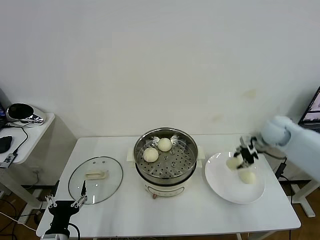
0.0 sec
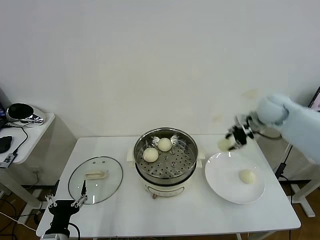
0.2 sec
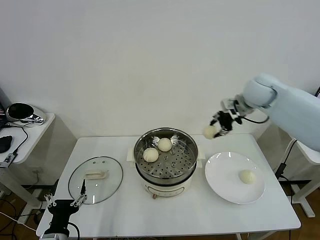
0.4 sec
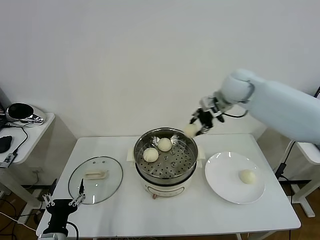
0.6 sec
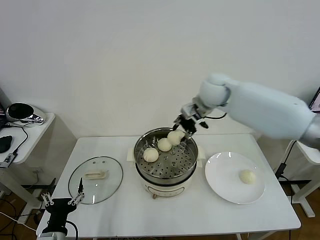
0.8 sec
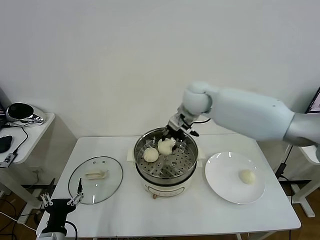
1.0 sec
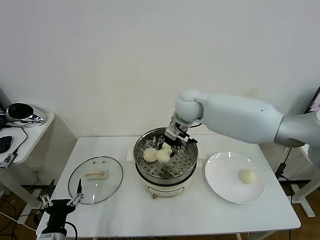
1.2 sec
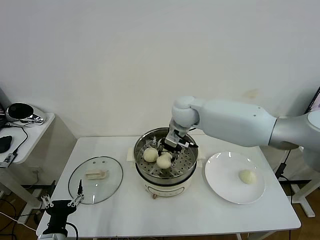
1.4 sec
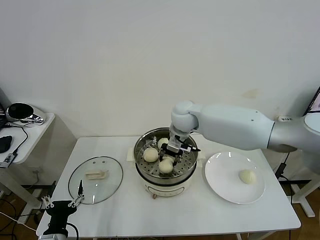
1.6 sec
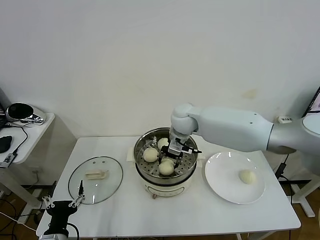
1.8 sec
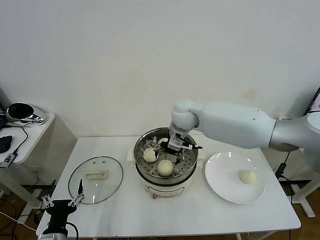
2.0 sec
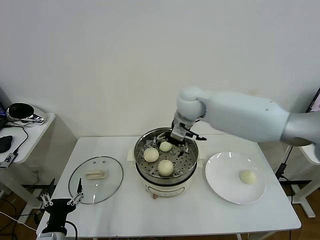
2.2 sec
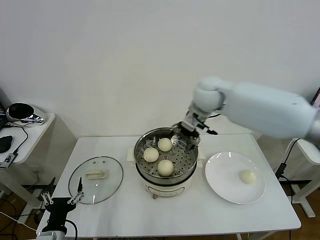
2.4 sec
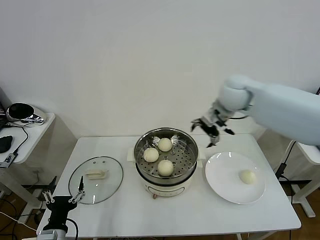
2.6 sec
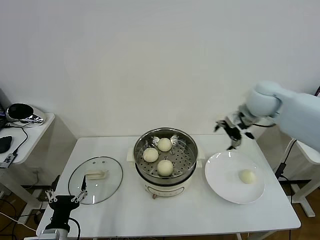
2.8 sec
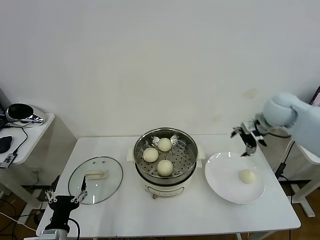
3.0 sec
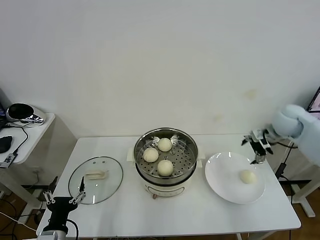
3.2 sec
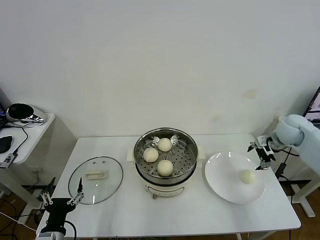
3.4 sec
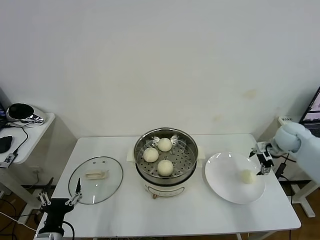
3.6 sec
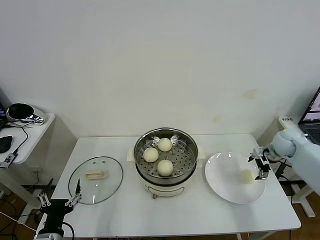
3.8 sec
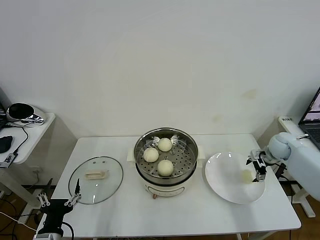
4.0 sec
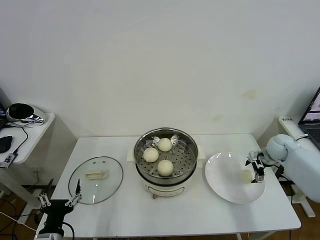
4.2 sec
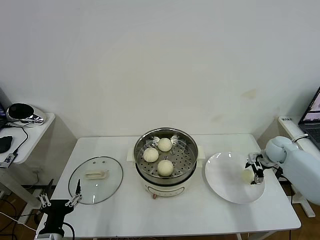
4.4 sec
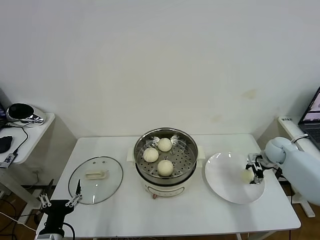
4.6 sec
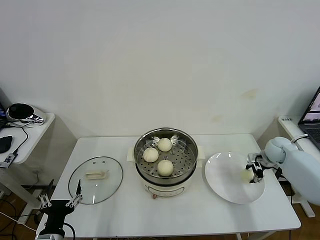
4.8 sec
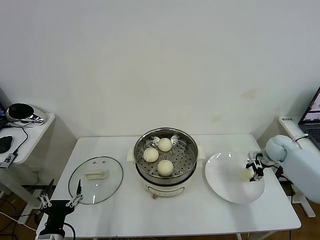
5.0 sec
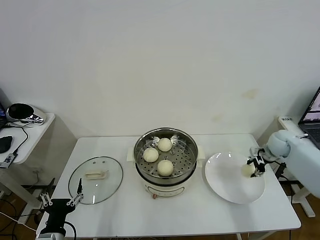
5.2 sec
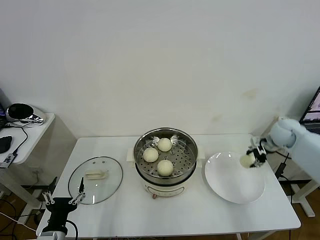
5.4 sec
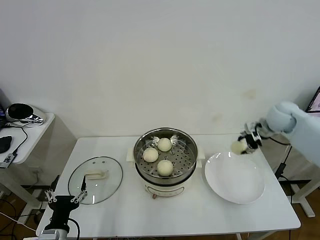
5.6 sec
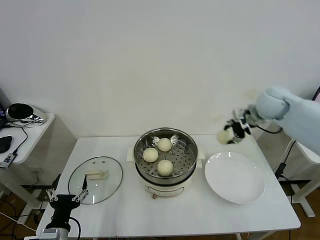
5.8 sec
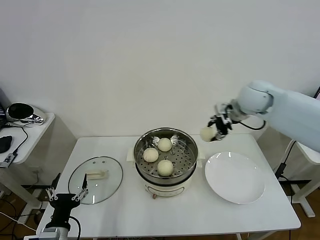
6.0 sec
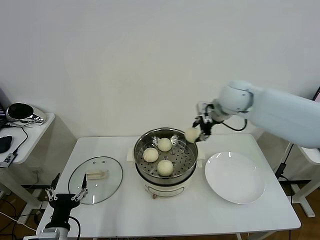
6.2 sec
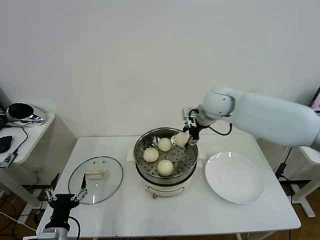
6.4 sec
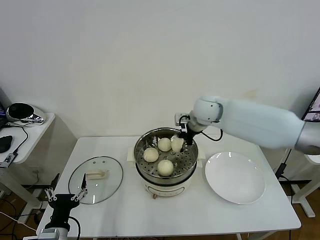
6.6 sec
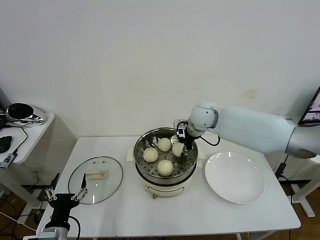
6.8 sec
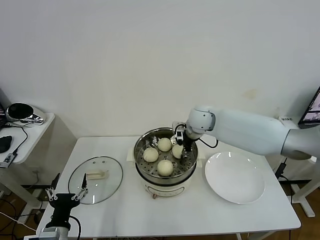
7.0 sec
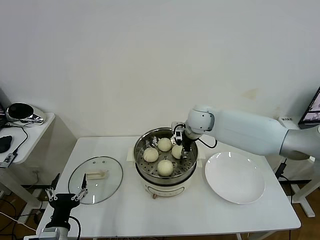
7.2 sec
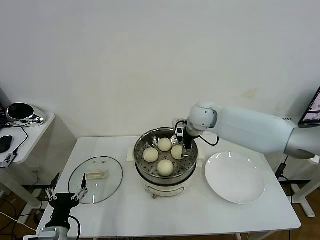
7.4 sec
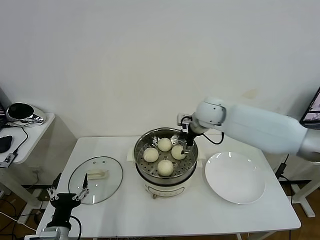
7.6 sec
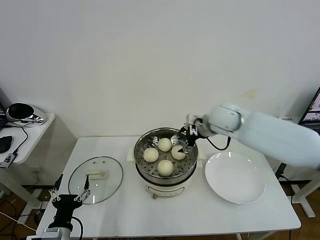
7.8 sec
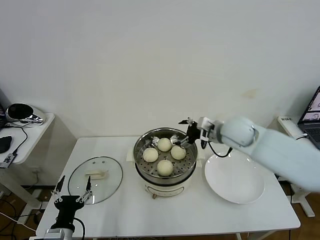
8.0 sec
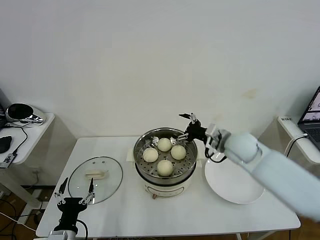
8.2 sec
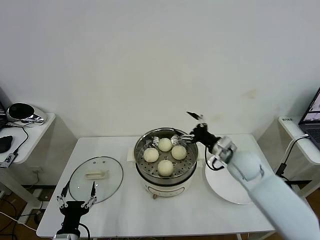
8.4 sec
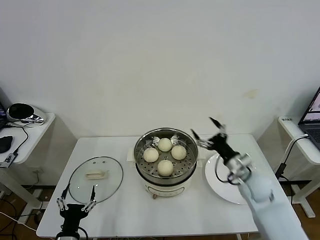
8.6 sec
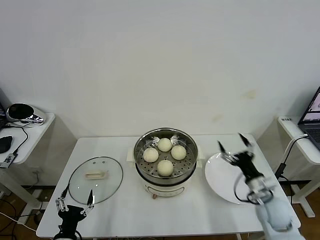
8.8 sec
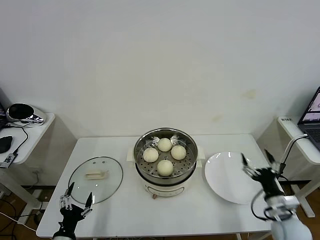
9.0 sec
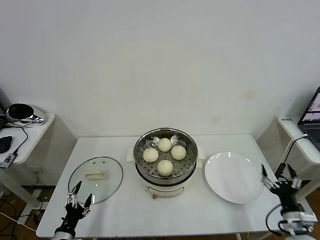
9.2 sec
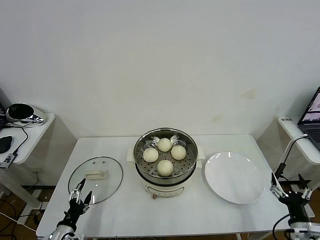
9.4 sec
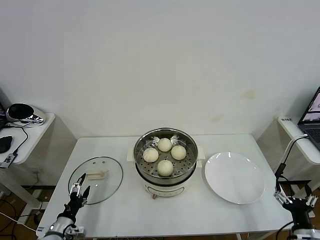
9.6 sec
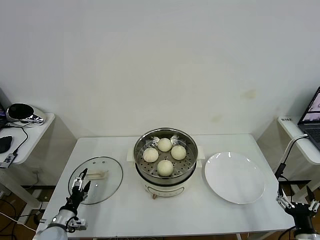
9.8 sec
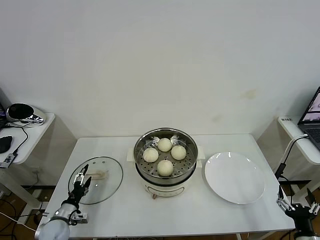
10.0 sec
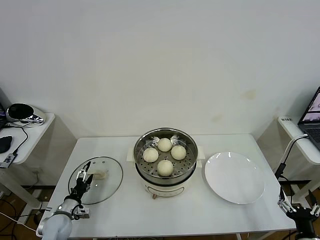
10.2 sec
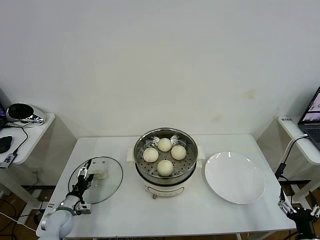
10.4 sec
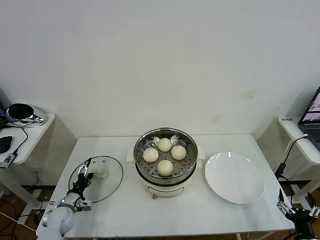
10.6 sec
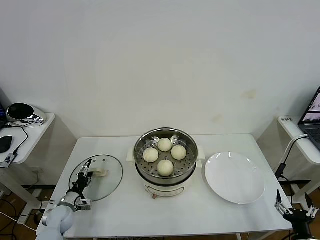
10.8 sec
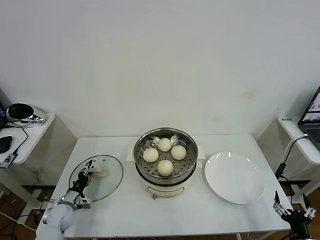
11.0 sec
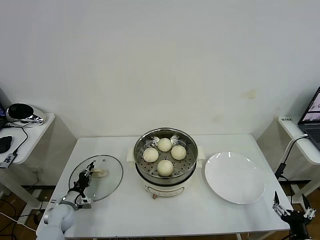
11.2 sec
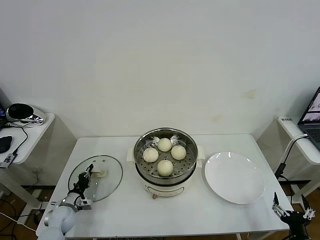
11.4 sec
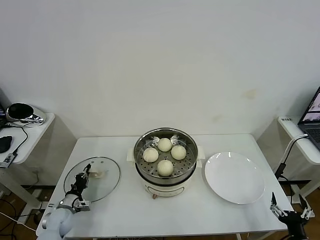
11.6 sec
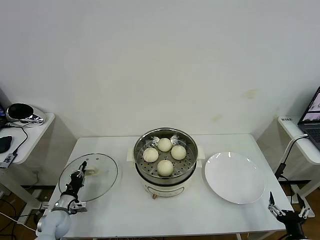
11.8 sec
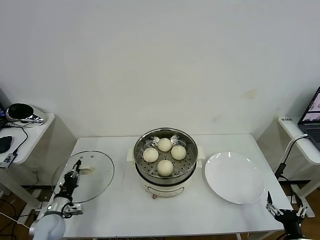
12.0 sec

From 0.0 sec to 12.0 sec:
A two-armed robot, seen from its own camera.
Task of the whole recording: take steamed baozi put them in steamer then cover it.
Step, from 0.0 sec to 2.0 sec: Place the baozi on the steamer with right gripper.
Step, from 2.2 sec to 5.0 sec: Grasp the baozi in the plate with right gripper.
Step, from 5.2 sec to 7.4 sec: Place the baozi on the steamer with right gripper.
Step, from 7.6 sec to 11.4 sec: Grasp the pot lid with left gripper.
From 0.0 sec to 1.6 sec: The right gripper goes about 30 cm to the left.
From 1.6 sec to 3.0 sec: The right gripper heads to the right, covering about 30 cm, and opens up.
From 3.0 sec to 4.4 sec: The right gripper goes approximately 20 cm downward and to the right.
From 4.4 sec to 6.0 sec: The right gripper travels upward and to the left by roughly 30 cm, and closes.
From 6.0 sec to 7.6 sec: The right gripper moves to the left and downward, about 10 cm, and opens its fingers.
From 7.6 sec to 9.0 sec: The right gripper shifts roughly 40 cm backward, downward and to the right; the left gripper is displaced downward by some 5 cm.
From 9.0 sec to 10.4 sec: The left gripper goes about 15 cm forward. The right gripper goes approximately 10 cm backward.
From 10.4 sec to 12.0 sec: The left gripper closes.

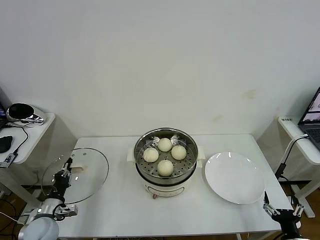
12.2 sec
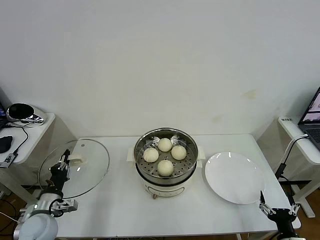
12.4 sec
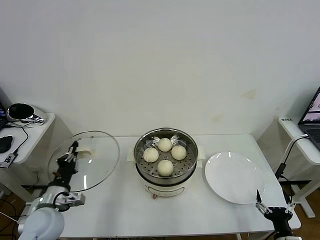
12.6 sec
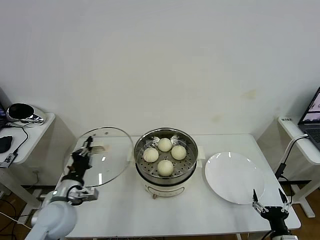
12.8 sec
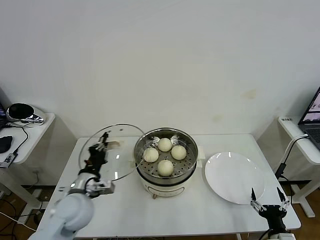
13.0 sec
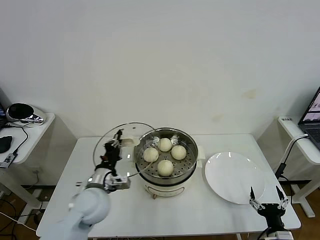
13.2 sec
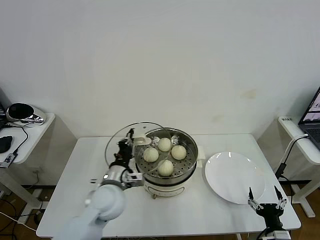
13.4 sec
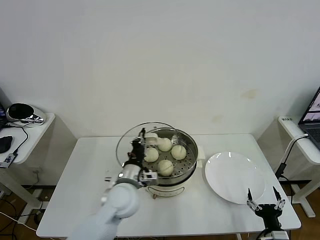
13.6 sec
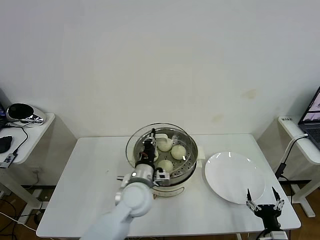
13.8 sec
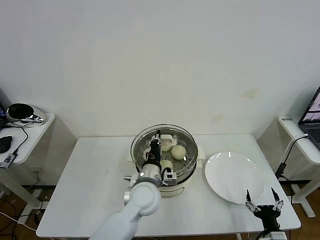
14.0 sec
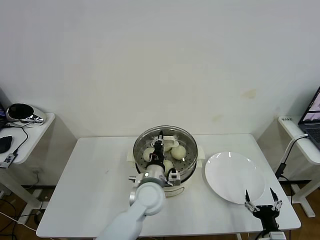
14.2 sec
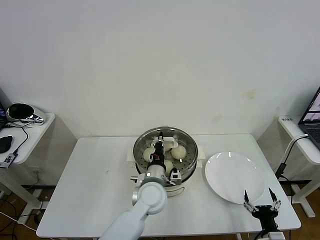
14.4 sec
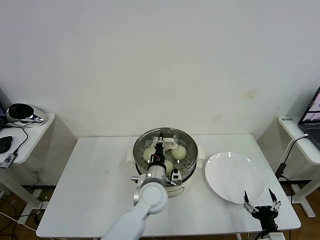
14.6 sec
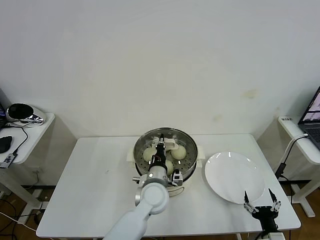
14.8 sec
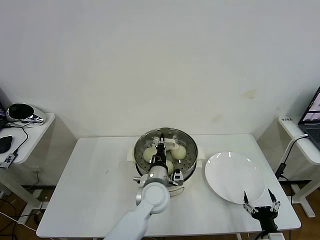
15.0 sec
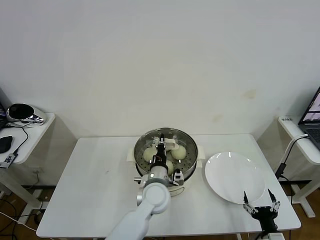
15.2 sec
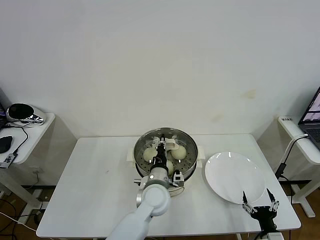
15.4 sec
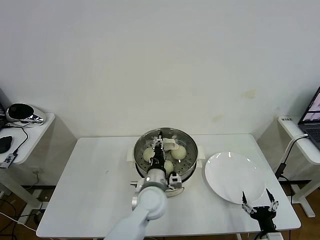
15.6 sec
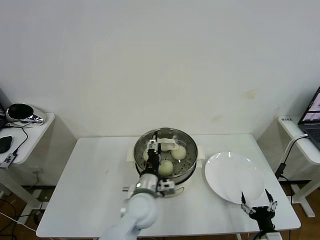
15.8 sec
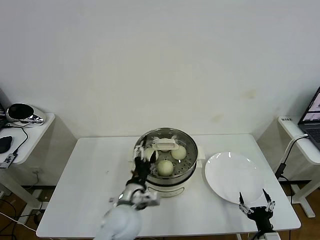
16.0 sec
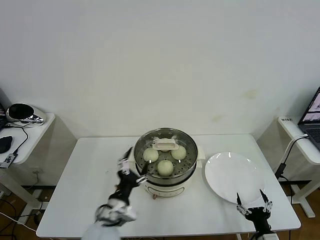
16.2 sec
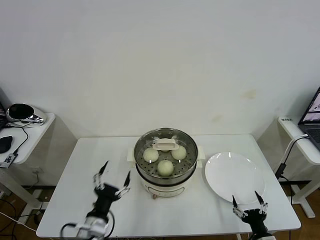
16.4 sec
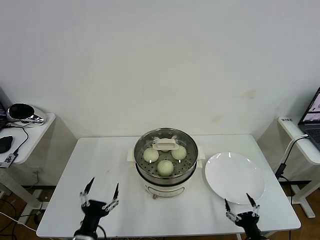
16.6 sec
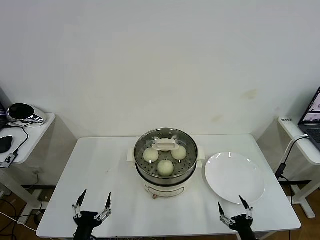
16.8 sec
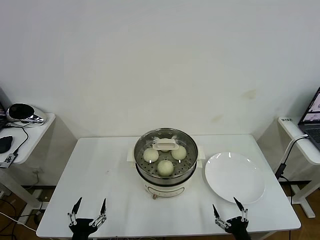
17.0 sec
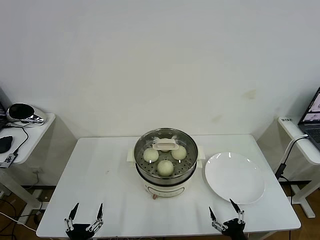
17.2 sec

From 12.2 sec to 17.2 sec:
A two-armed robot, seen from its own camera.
Task of the whole recording: take steamed baozi put them in steamer then cover it.
Step, from 12.2 sec to 15.8 sec: Place the pot lid on the steamer with left gripper.
From 12.2 sec to 13.8 sec: The left gripper is displaced to the right by some 30 cm.
From 13.8 sec to 15.6 sec: The left gripper heads to the right, covering approximately 5 cm, and opens up.
From 15.6 sec to 17.2 sec: The left gripper shifts roughly 35 cm to the left and backward, and opens. Meanwhile the right gripper travels to the left by about 5 cm.

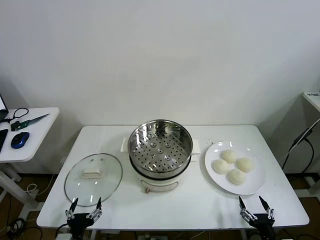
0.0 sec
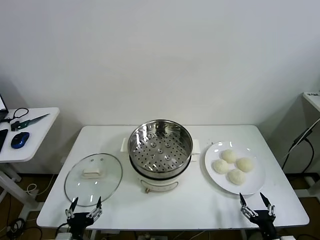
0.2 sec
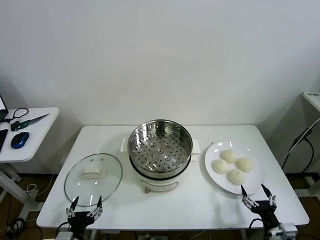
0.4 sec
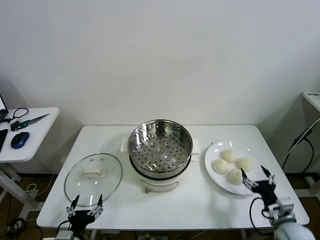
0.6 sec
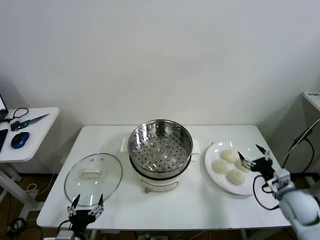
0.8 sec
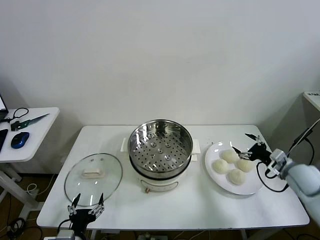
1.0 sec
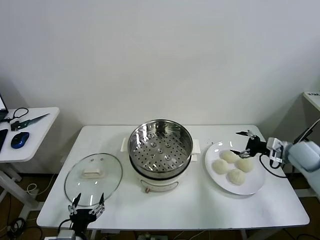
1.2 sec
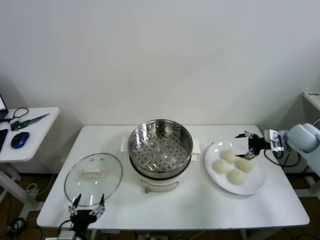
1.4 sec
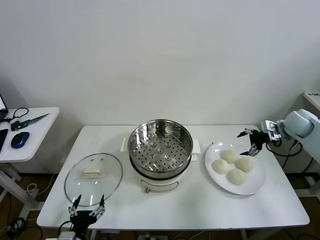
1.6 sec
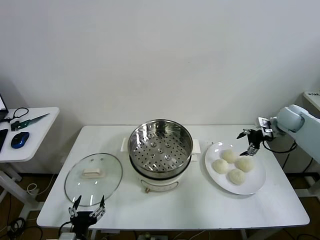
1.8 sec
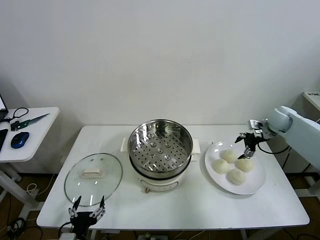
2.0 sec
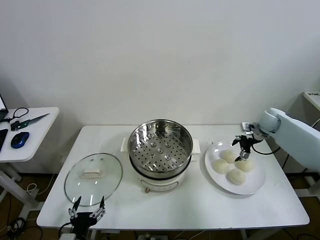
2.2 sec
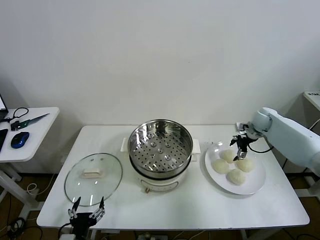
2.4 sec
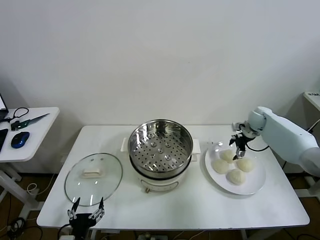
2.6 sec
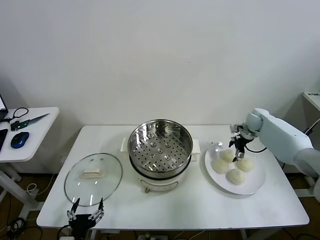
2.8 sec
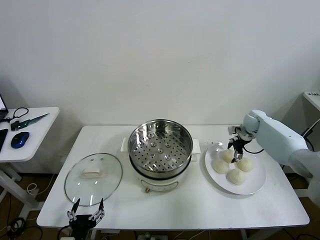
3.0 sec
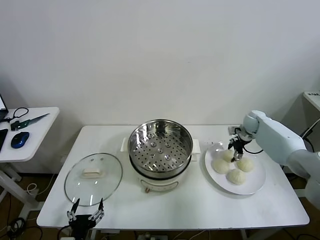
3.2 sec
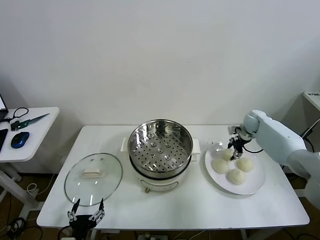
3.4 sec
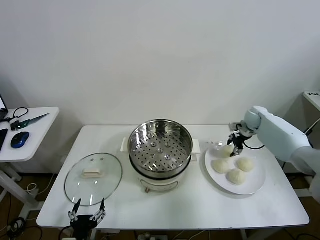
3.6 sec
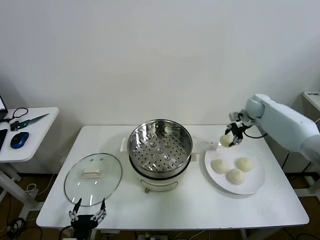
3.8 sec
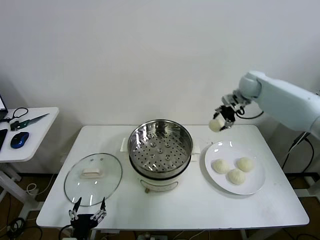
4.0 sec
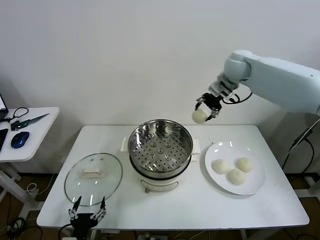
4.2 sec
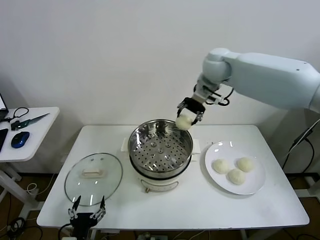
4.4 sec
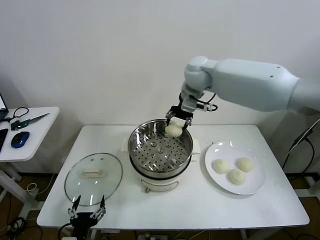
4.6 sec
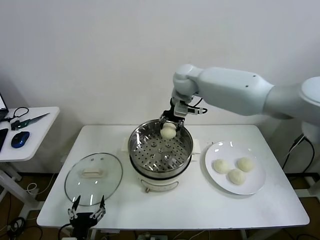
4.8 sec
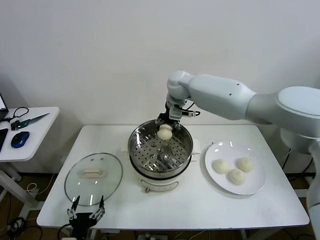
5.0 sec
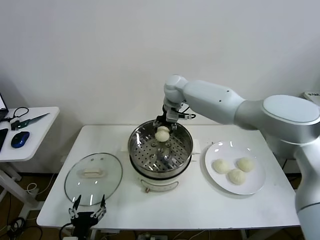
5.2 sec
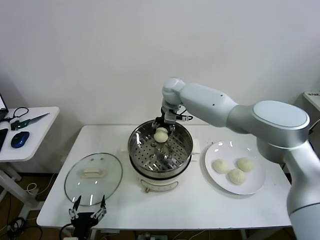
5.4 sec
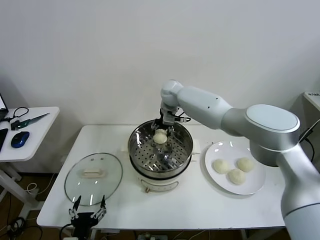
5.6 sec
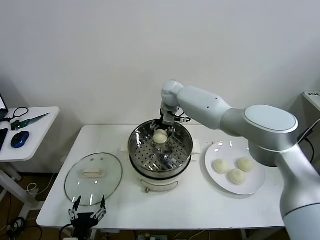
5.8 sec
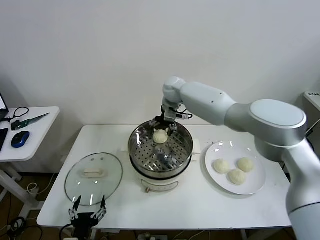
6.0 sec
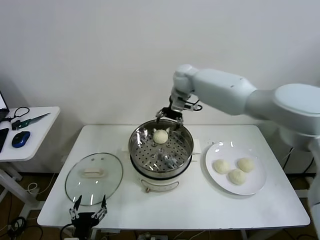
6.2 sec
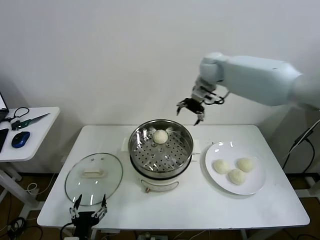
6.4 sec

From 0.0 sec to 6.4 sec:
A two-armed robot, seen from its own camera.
Task of the whole recording: take steamed baozi put them in steamer then cover it.
Step, from 0.0 sec to 3.0 sec: Grasp the baozi in the plate with right gripper.
Step, from 3.2 sec to 5.8 sec: Place the baozi on the steamer with right gripper.
From 1.6 sec to 3.2 sec: The right gripper goes about 15 cm downward, forward and to the left, and closes.
From 3.2 sec to 4.8 sec: The right gripper goes approximately 40 cm to the left and upward.
From 4.8 sec to 6.4 sec: The right gripper travels to the right by approximately 15 cm, and opens its fingers.
